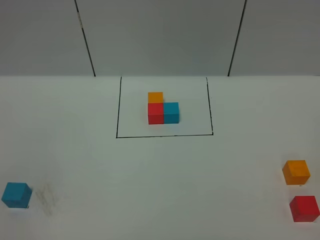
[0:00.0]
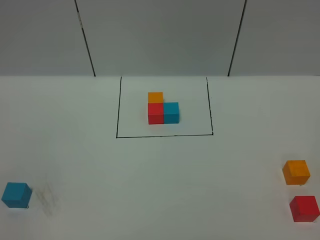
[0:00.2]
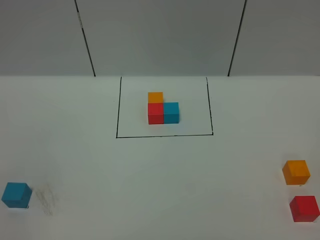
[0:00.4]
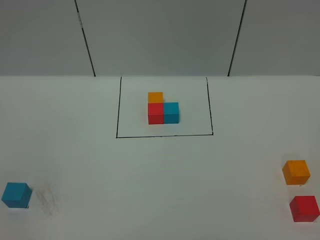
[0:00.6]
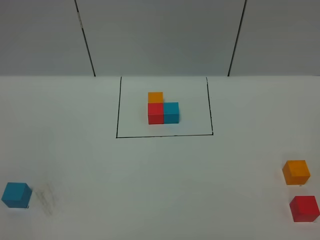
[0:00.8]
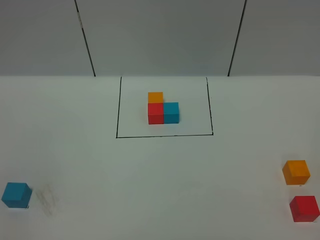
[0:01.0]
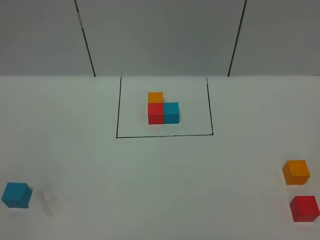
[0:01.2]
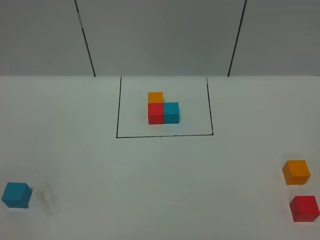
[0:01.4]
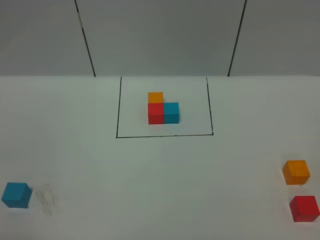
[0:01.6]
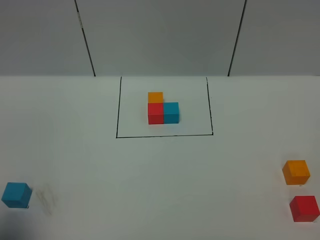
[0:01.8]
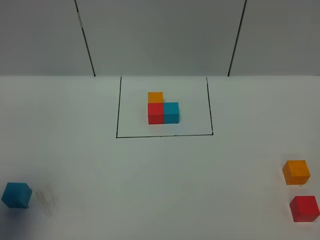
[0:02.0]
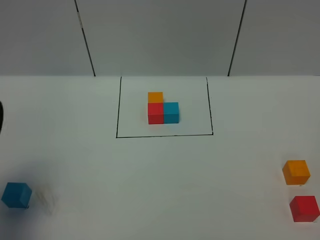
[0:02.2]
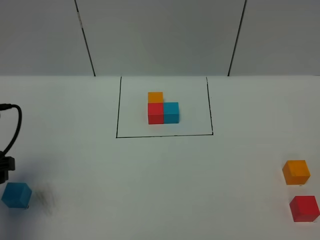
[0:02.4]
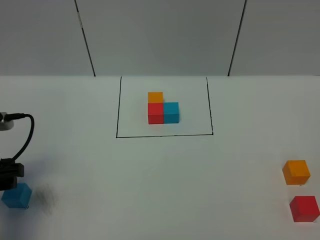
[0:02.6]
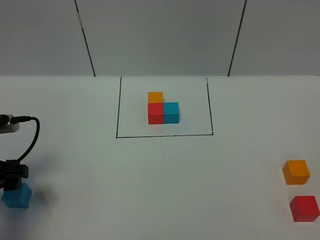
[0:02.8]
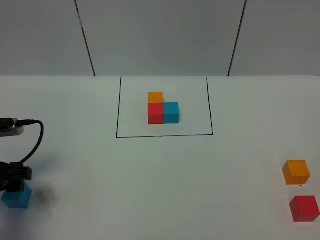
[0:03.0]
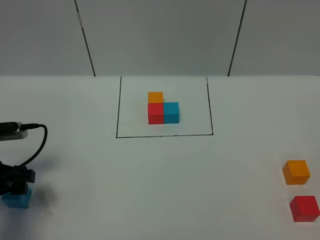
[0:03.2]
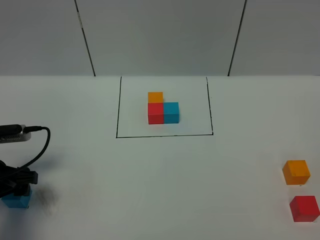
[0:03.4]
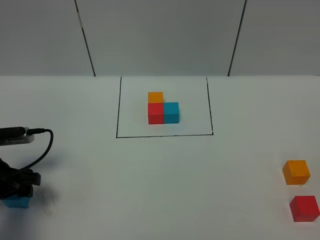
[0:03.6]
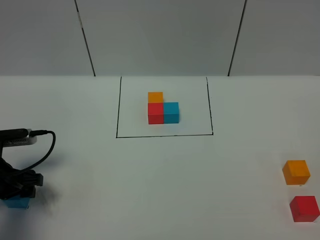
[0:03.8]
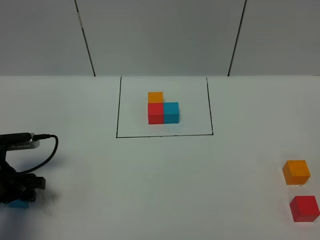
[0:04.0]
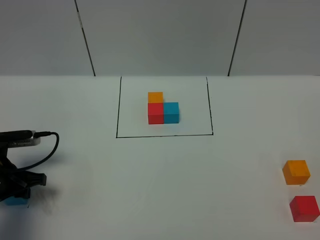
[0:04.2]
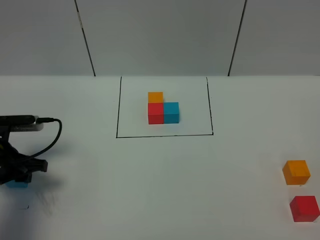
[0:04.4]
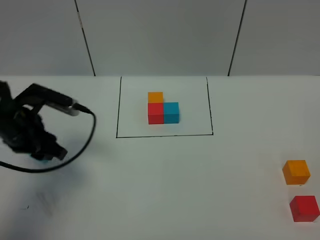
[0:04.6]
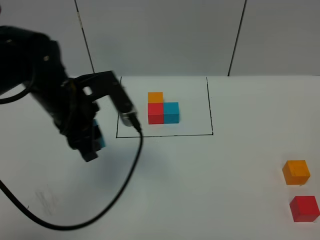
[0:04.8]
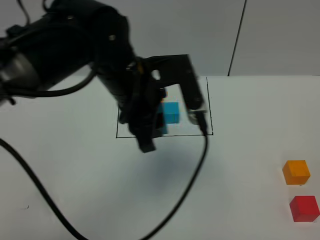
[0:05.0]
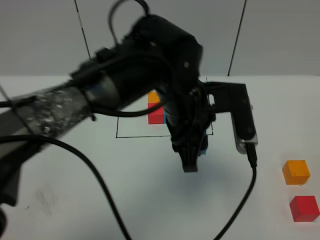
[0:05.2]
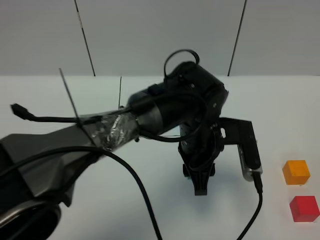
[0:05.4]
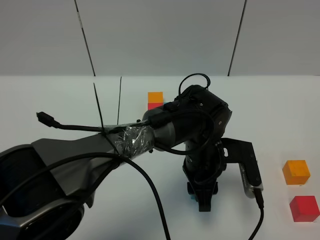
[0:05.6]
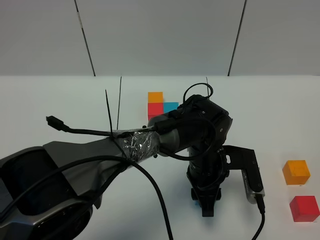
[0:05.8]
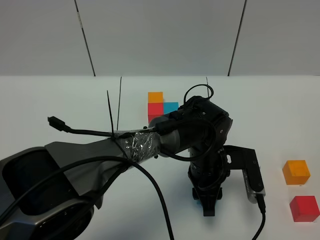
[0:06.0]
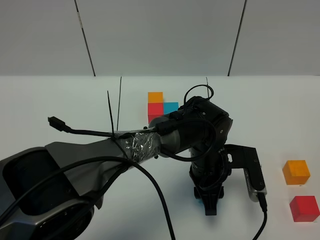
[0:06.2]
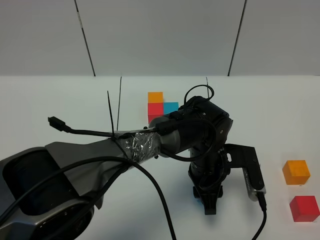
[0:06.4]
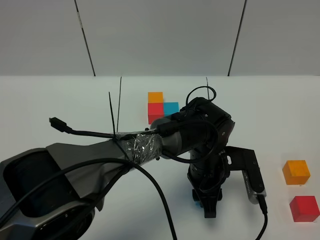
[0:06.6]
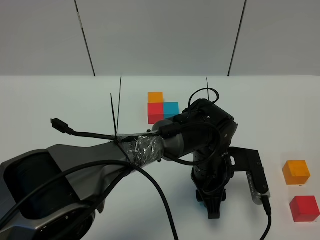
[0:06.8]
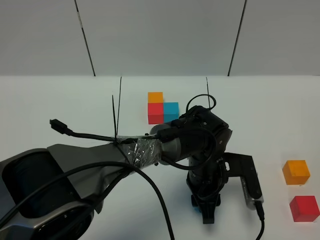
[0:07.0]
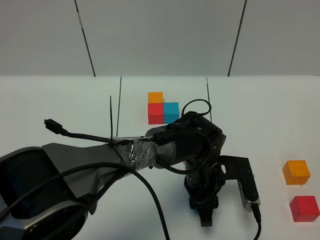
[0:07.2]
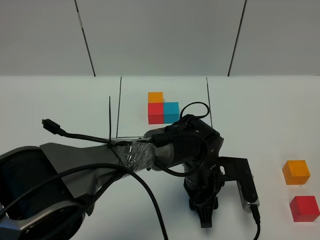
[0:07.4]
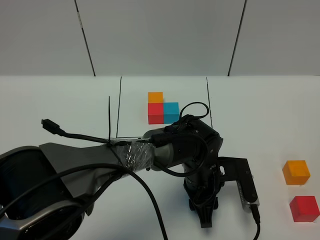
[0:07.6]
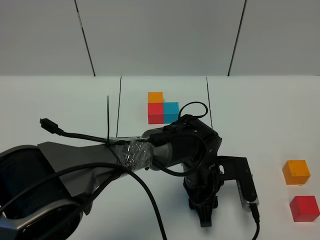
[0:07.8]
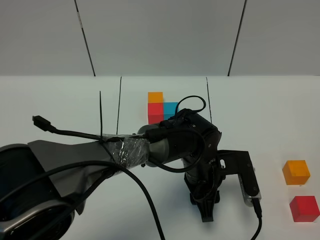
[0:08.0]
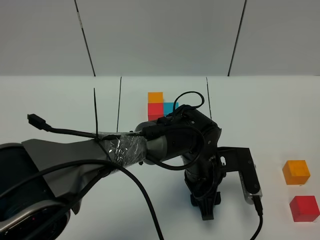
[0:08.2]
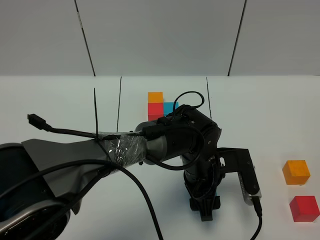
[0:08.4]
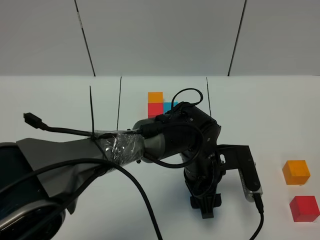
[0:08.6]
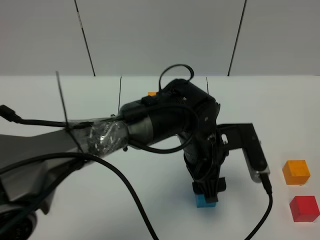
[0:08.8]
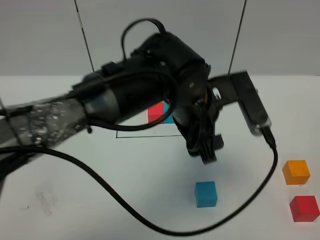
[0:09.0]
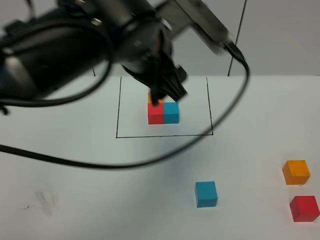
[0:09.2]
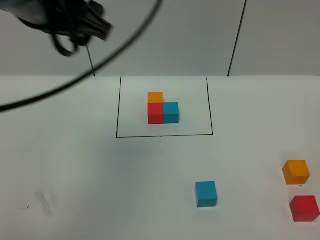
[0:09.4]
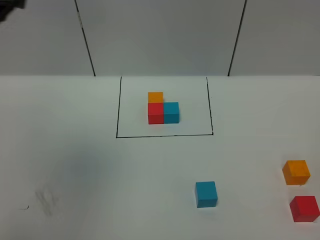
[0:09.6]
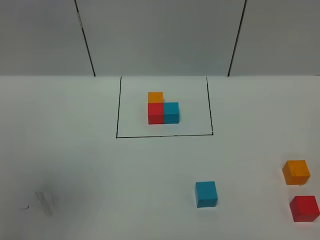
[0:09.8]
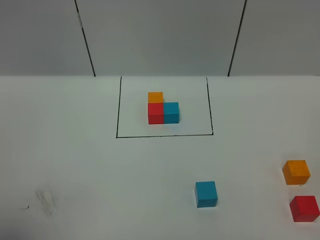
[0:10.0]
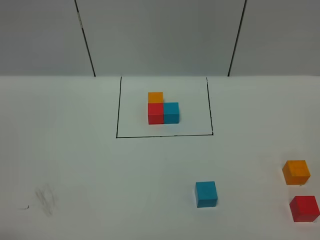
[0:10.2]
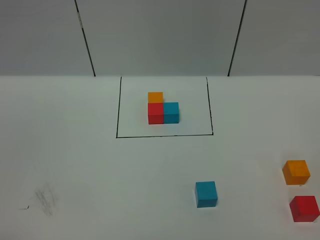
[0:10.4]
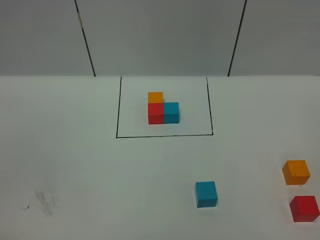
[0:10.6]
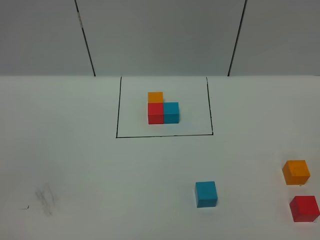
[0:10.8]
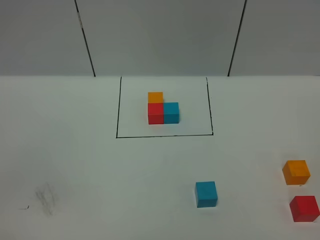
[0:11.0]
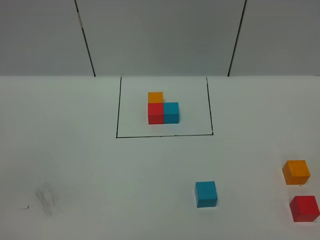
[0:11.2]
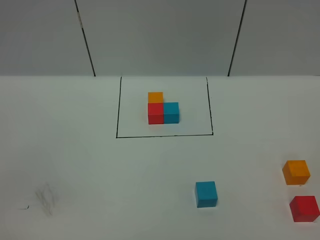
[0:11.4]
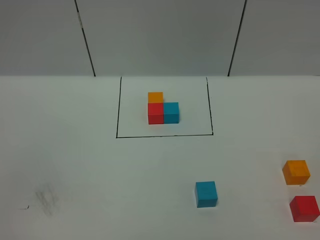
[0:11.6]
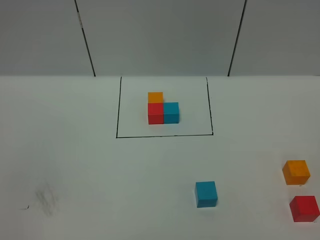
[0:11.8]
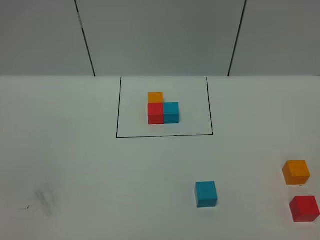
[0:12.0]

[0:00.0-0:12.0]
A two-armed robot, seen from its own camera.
Task of the whole recording: According to the building block template in front, assemble the scattered blocks together.
Step, 0:02.0 to 0:08.4: Put the blue cube in the center of the table.
0:01.6 to 0:03.0: The left gripper shifts about 25 cm forward and downward.
0:03.0 to 0:04.4: The left gripper moves forward, about 5 cm, and closes up.
0:04.4 to 0:06.0: The left gripper goes about 40 cm to the right.
0:06.0 to 0:07.6: There are only small adjustments of the grippers.
0:07.6 to 0:09.0: The left gripper heads upward, covering about 20 cm, and opens.
0:09.0 to 0:10.4: The left gripper moves to the left and backward, roughly 50 cm.

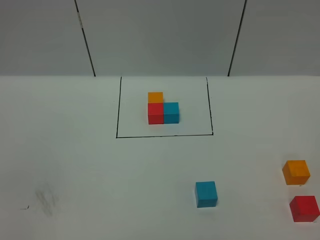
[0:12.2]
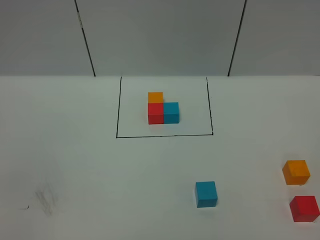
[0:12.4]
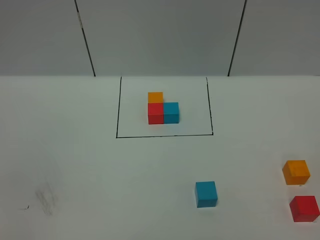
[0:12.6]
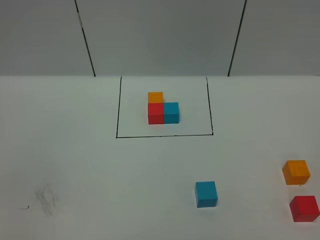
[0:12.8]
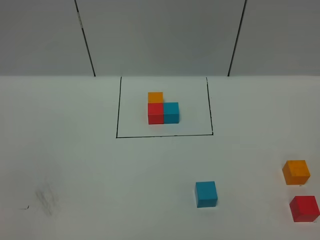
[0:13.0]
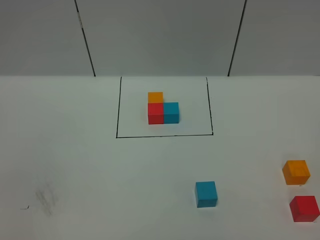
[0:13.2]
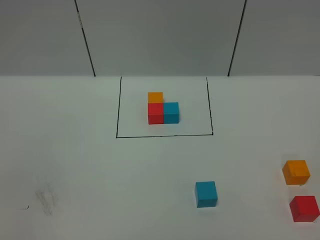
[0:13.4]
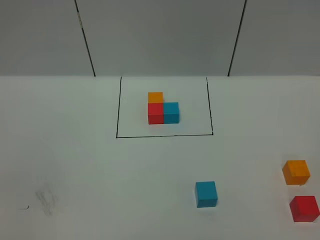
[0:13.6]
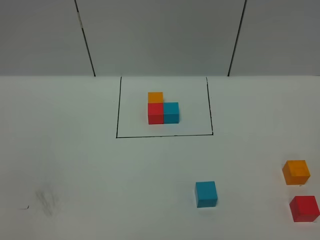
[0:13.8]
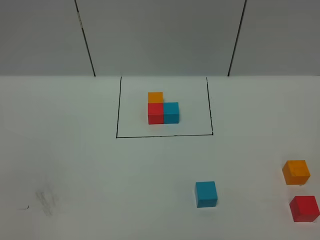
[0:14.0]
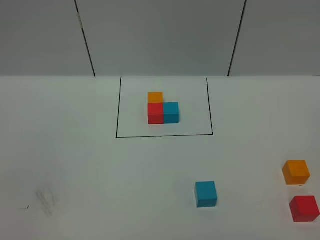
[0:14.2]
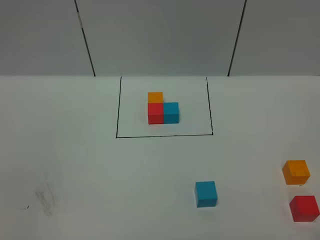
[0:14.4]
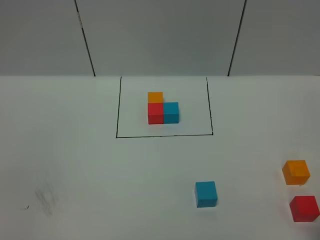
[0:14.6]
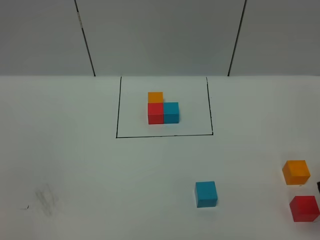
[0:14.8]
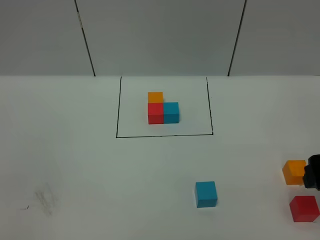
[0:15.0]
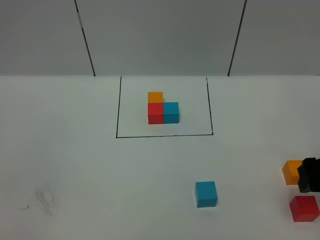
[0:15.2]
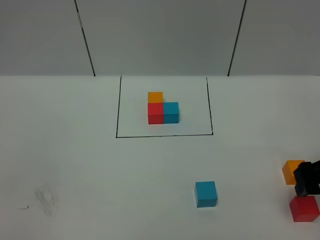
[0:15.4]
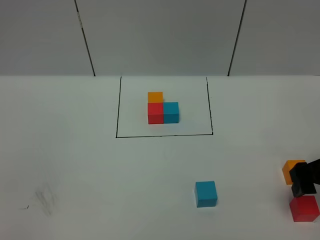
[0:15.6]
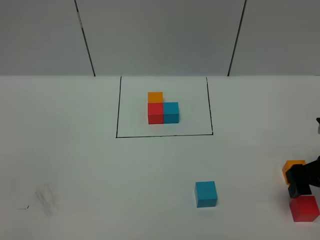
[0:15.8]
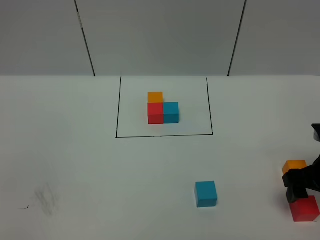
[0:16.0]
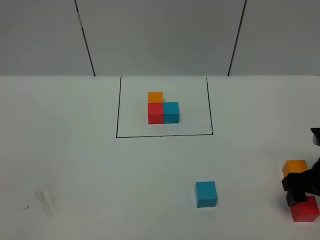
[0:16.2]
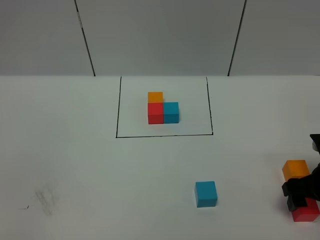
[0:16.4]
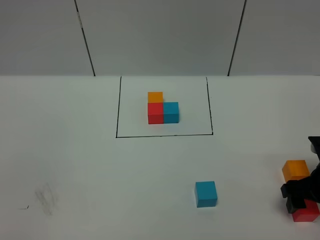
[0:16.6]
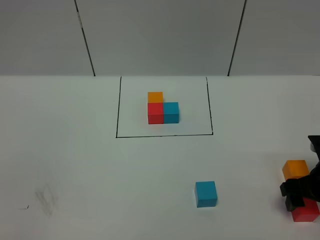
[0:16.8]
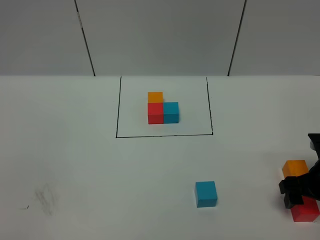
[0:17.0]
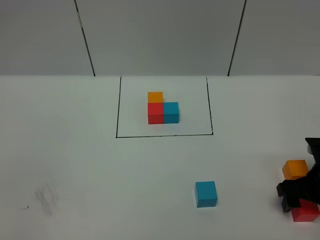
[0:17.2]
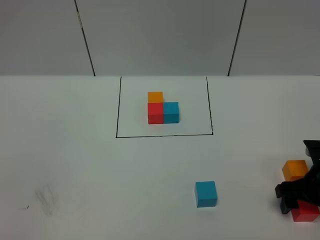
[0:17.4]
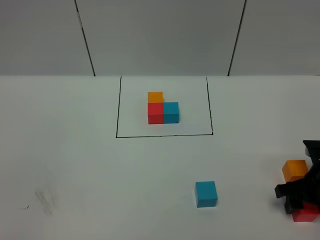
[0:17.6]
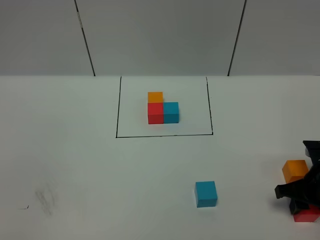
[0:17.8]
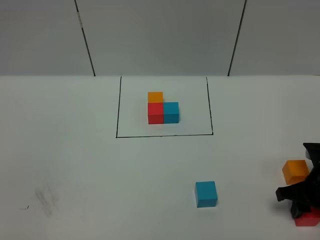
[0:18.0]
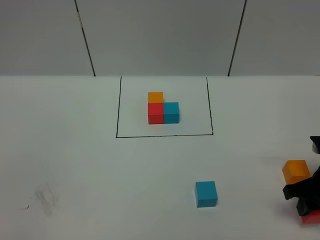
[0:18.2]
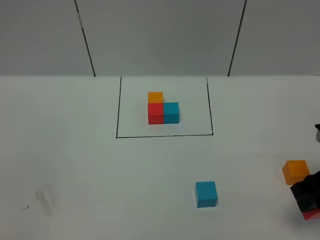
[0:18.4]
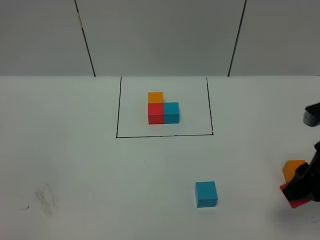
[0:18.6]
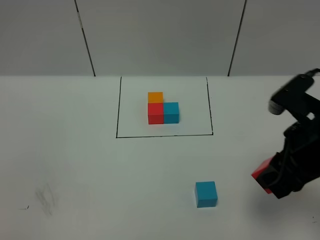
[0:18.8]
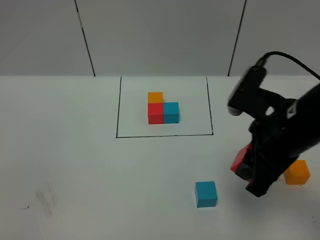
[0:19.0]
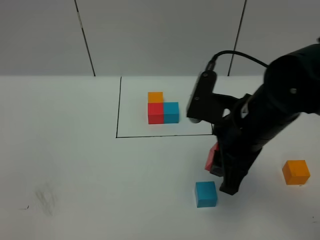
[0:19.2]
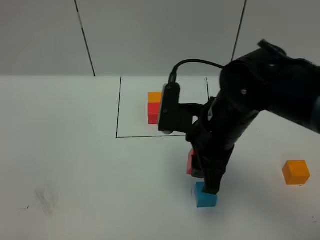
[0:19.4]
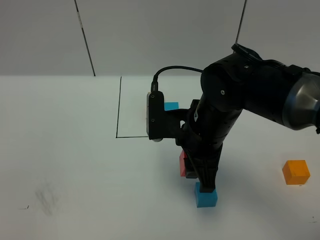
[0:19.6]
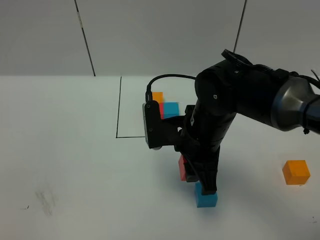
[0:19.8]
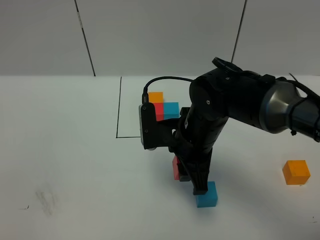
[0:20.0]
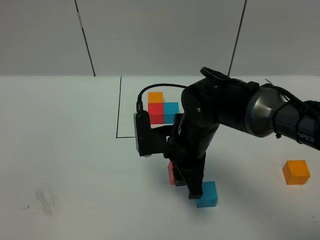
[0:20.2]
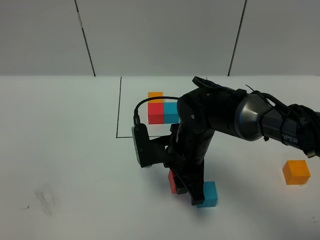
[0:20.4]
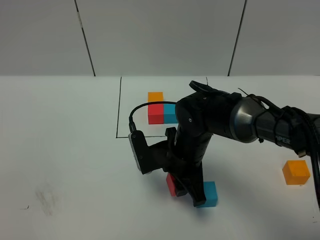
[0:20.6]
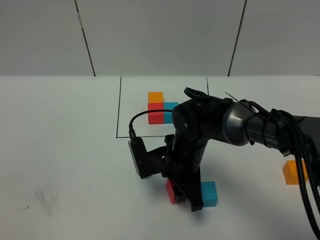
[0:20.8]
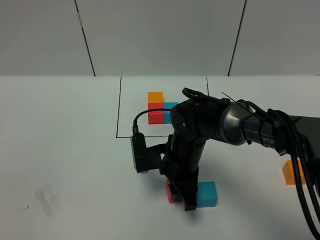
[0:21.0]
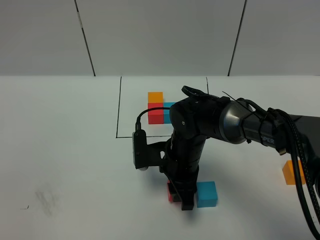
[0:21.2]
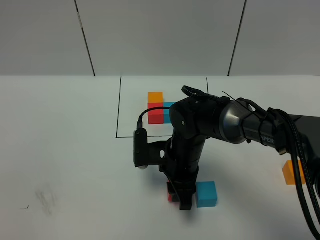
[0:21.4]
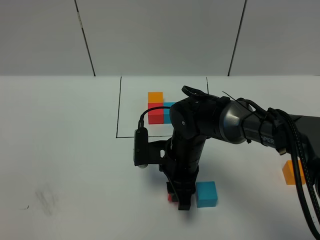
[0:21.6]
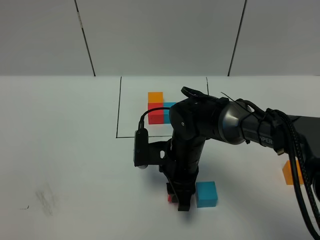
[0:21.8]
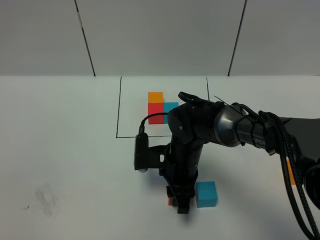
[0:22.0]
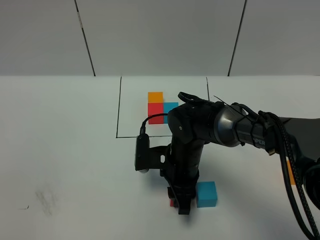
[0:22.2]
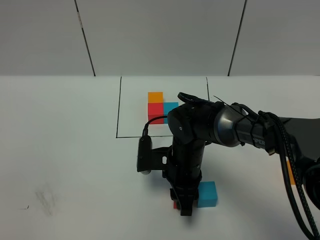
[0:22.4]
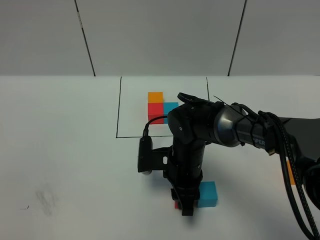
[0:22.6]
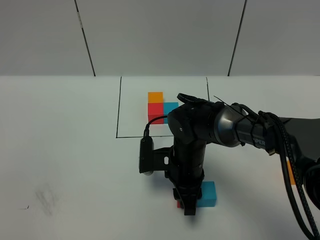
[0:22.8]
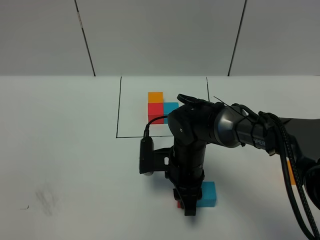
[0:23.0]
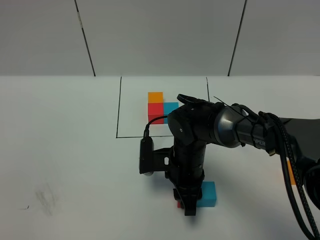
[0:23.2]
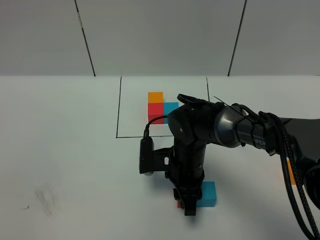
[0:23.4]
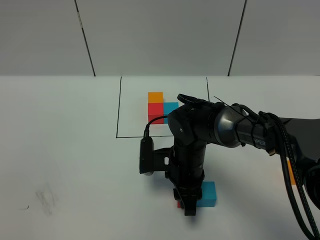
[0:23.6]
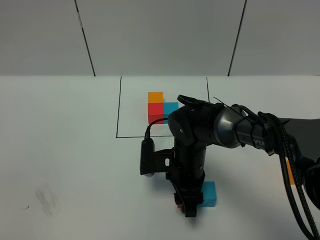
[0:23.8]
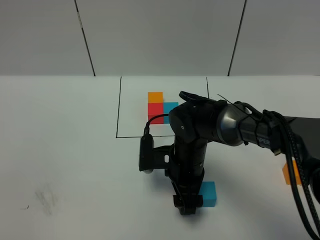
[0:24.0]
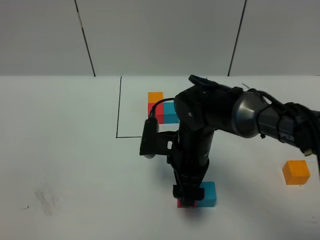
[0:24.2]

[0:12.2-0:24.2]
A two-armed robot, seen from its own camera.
Task of the whole recording: According to the building block template in front, assemble the scattered blocks together.
0:12.2 to 0:13.8: Both grippers stay about where they are.
0:13.8 to 0:15.2: The right gripper travels forward by approximately 25 cm.
0:15.2 to 0:16.6: The right gripper travels downward by roughly 10 cm.
0:16.6 to 0:18.2: The right gripper closes.
0:18.2 to 0:19.8: The right gripper heads to the left, covering roughly 25 cm.
0:19.8 to 0:21.2: The right gripper goes approximately 10 cm downward.
0:21.2 to 0:22.6: The grippers stay close to where they were, moving slightly.
0:22.6 to 0:24.2: The right gripper shifts roughly 5 cm upward, and opens up.
